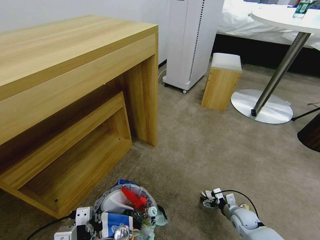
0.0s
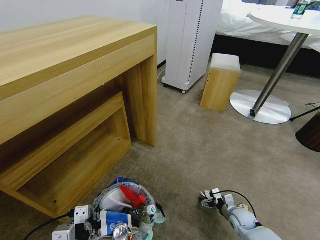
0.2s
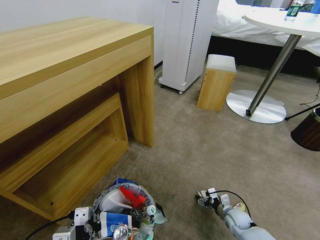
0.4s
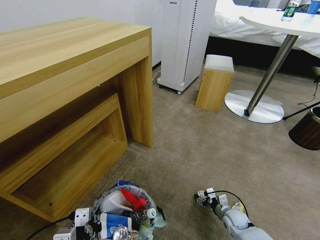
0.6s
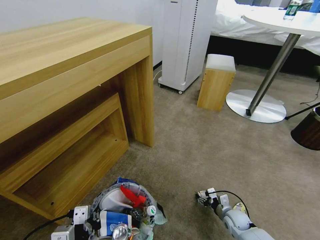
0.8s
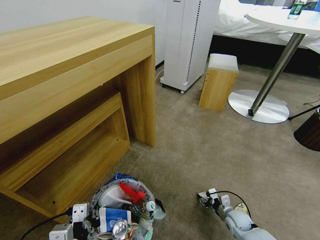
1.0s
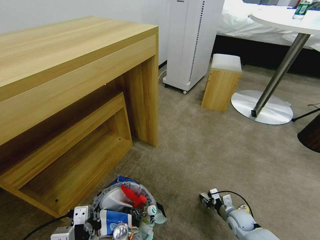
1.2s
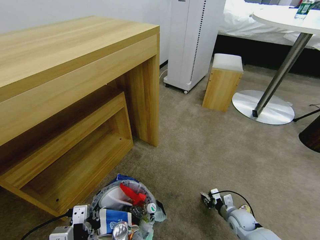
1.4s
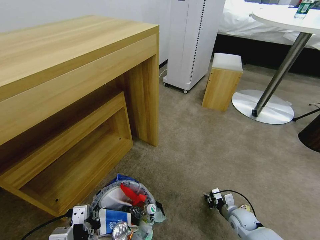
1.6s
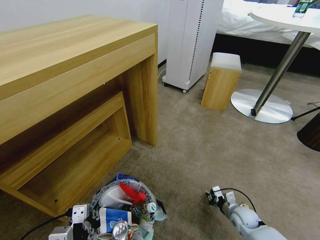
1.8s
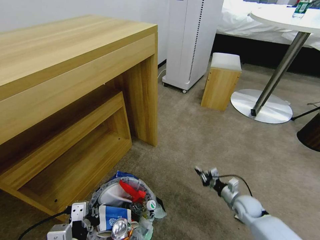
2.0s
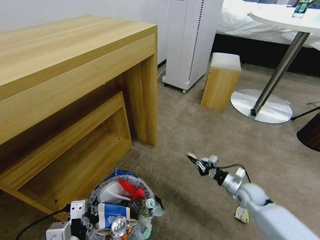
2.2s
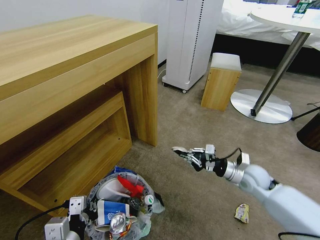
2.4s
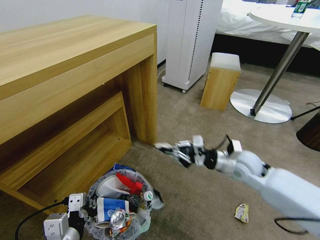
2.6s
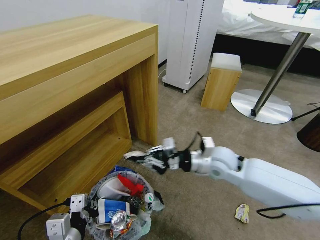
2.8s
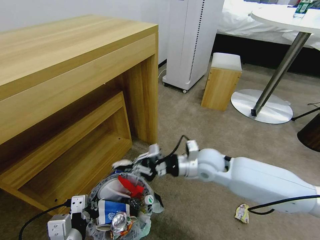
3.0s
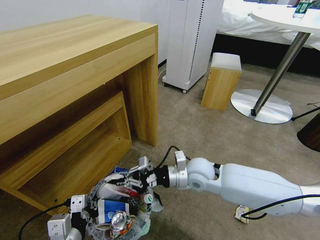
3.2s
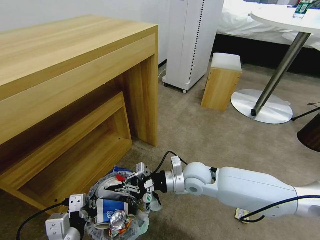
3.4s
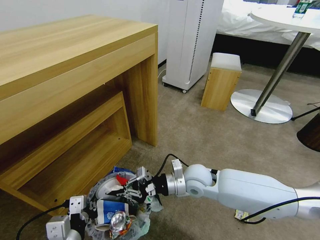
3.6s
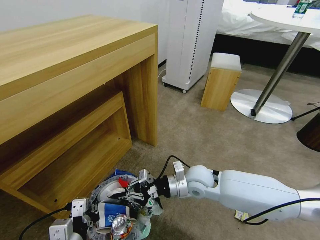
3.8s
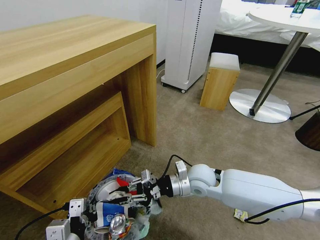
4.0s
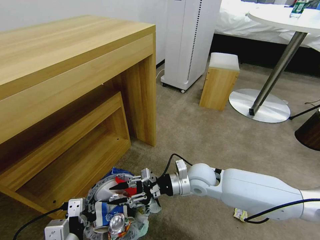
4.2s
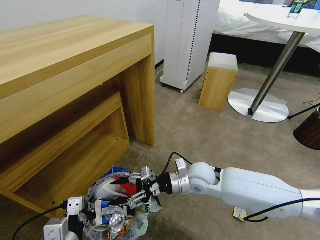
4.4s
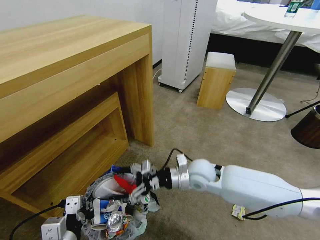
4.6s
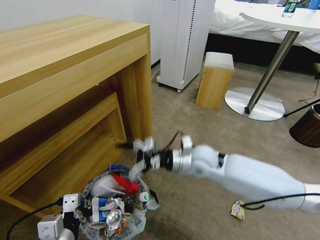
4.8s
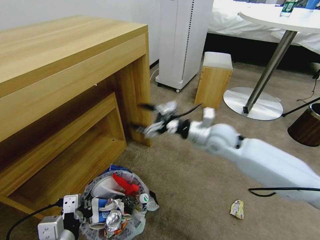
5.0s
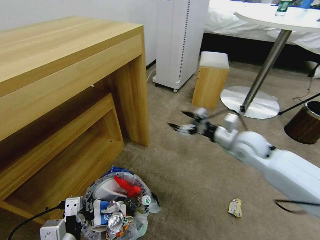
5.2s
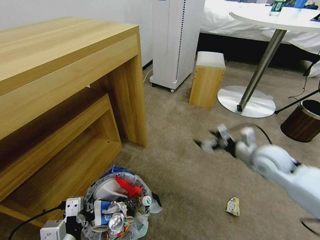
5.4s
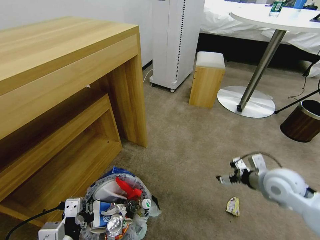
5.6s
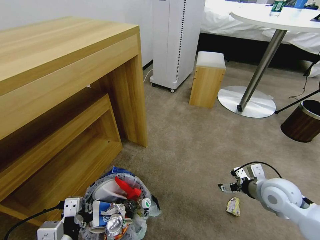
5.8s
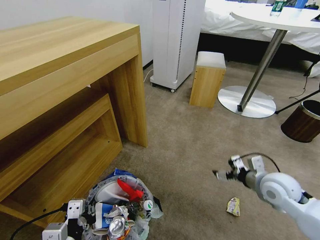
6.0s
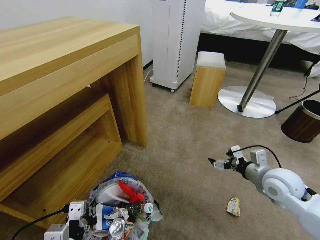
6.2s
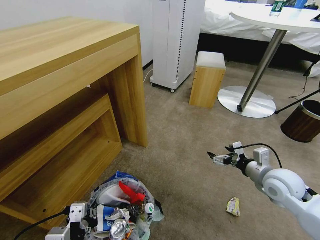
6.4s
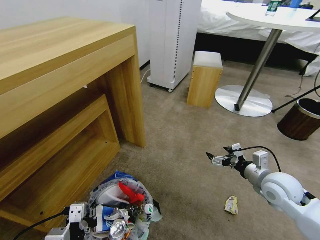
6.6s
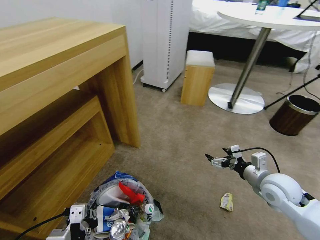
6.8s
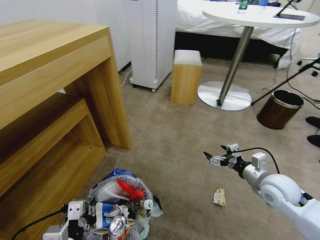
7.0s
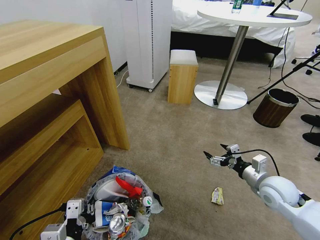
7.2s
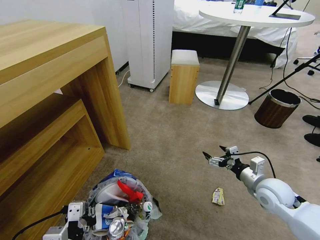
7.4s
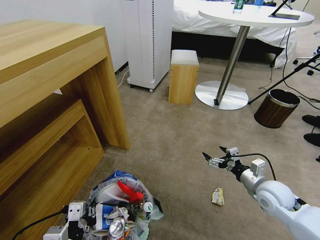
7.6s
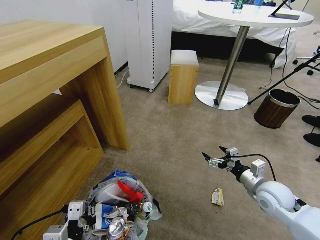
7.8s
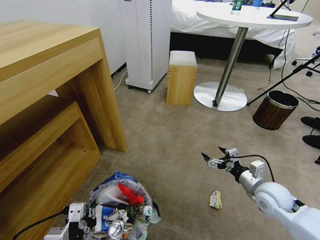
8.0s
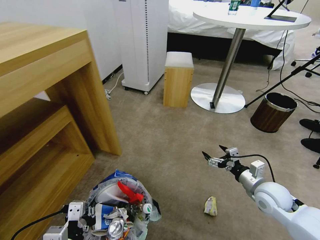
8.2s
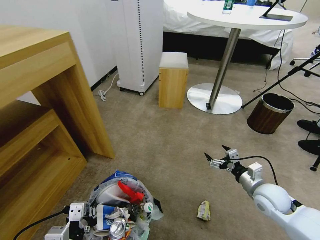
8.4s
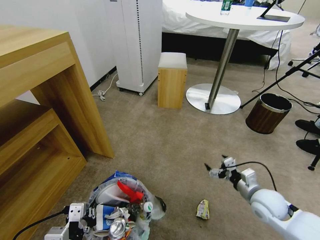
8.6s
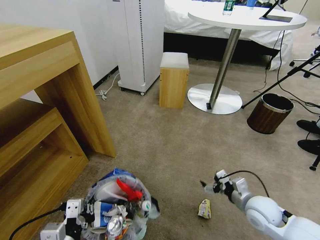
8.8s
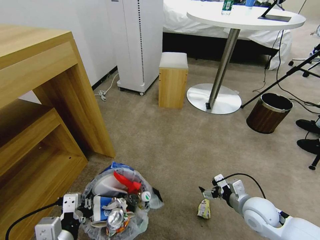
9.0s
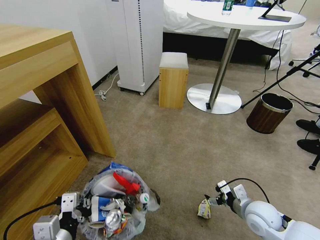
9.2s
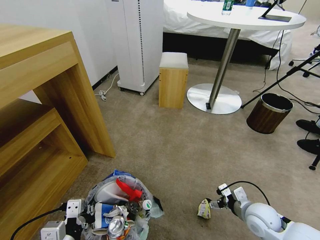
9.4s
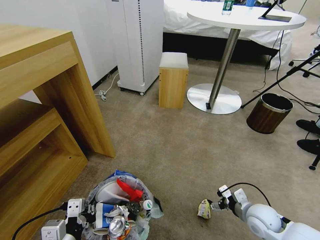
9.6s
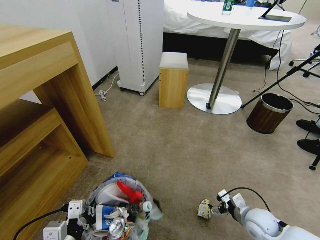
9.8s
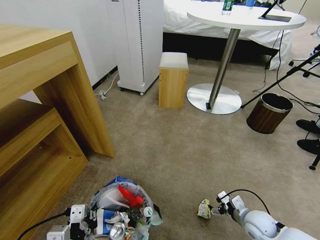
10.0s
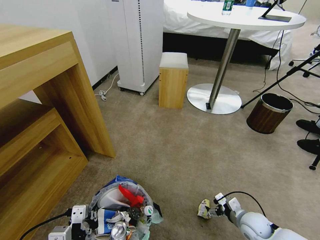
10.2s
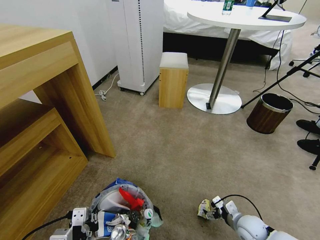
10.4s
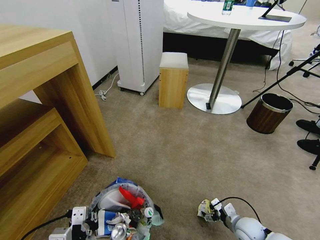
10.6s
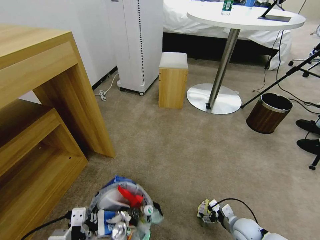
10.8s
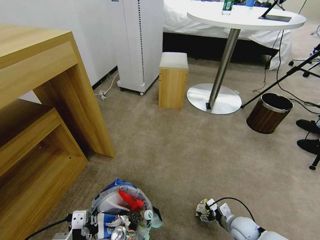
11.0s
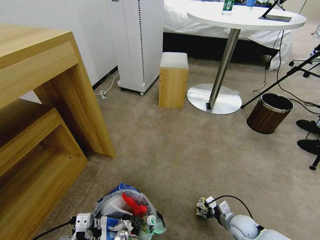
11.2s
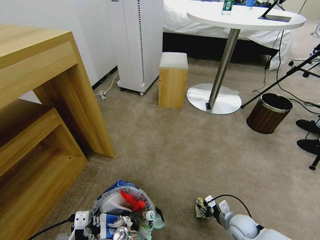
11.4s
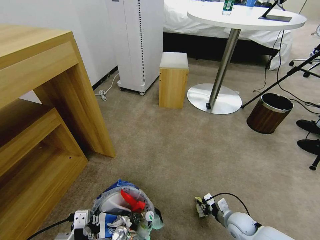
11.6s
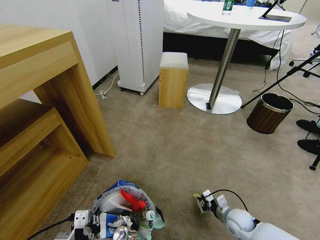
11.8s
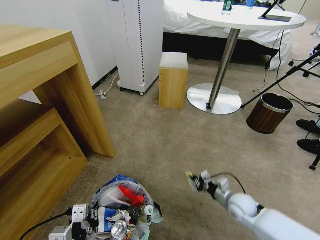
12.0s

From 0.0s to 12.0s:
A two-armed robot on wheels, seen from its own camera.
Task of the whole recording: Pick up the trash bin and place the garbage on the floor into it.
From 0.0s to 1.6s: The right gripper closes its fingers.
From 1.6s to 3.0s: The right gripper is displaced upward and to the left by roughly 35 cm.
From 3.0s to 4.4s: The right gripper opens up.
From 4.4s to 6.0s: The right gripper shifts approximately 20 cm to the right.
From 7.6s to 9.0s: The right gripper ends up roughly 5 cm from where it was.
From 9.0s to 10.4s: The right gripper shifts about 10 cm downward.
From 10.4s to 12.0s: The right gripper goes about 5 cm forward, and closes its fingers.

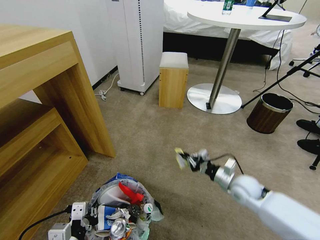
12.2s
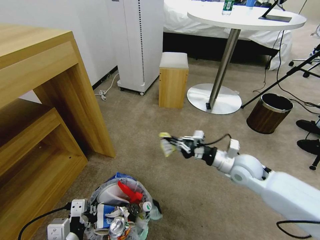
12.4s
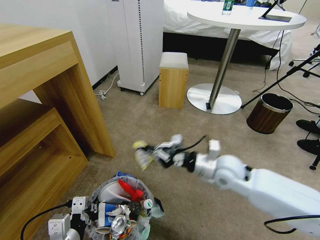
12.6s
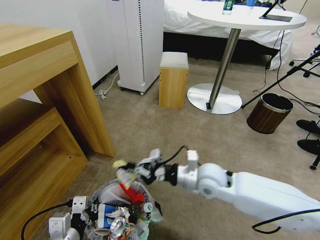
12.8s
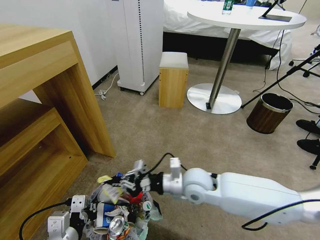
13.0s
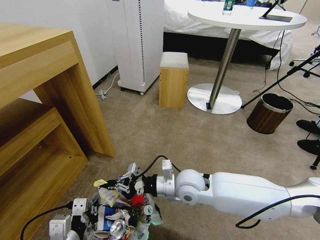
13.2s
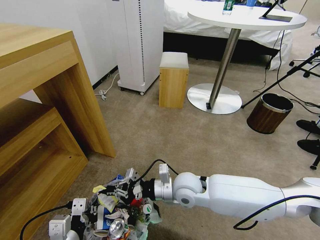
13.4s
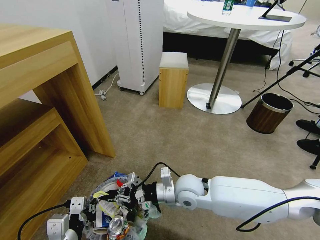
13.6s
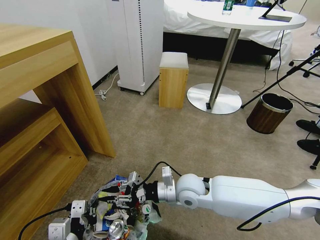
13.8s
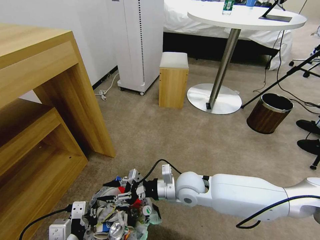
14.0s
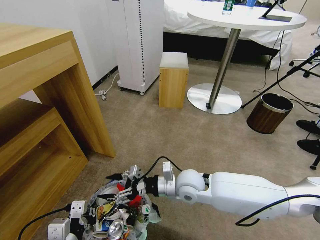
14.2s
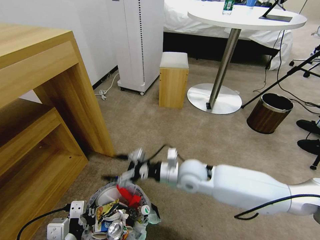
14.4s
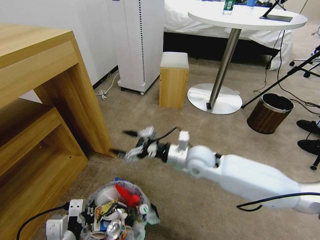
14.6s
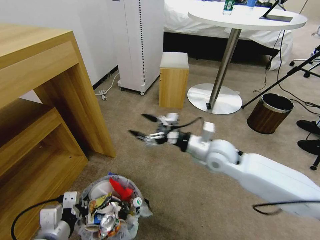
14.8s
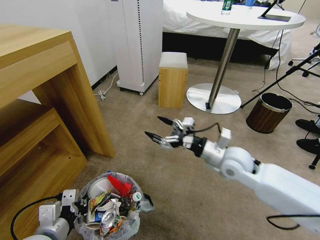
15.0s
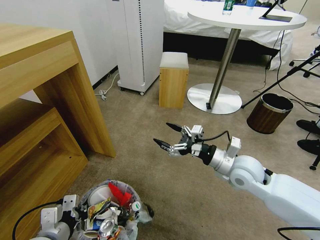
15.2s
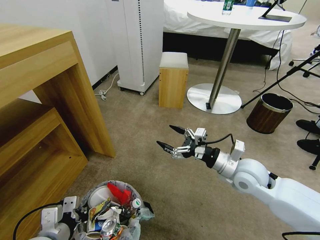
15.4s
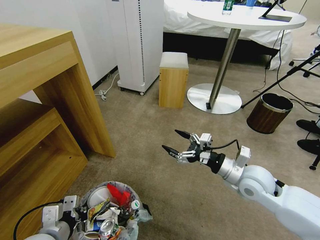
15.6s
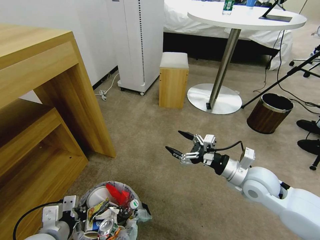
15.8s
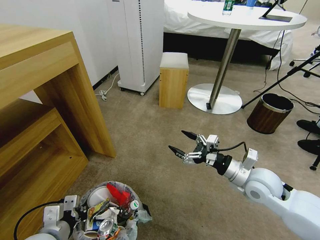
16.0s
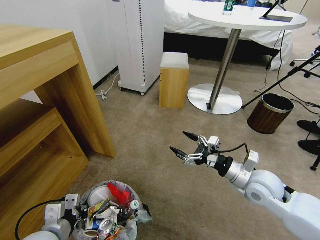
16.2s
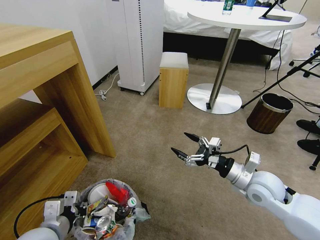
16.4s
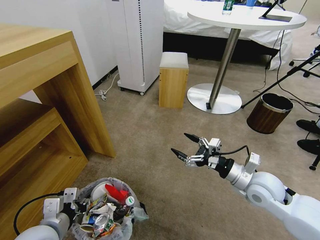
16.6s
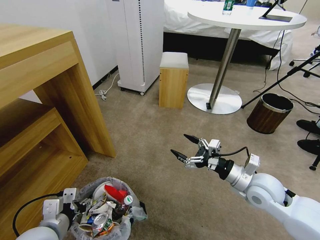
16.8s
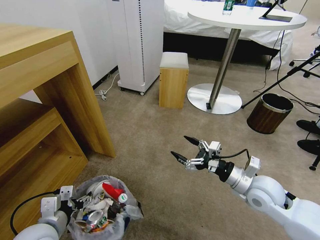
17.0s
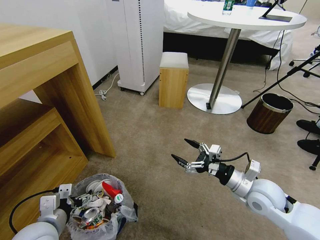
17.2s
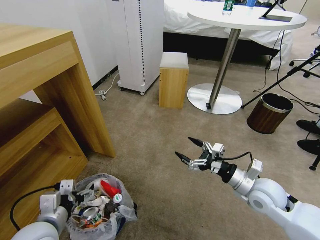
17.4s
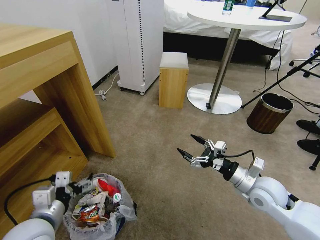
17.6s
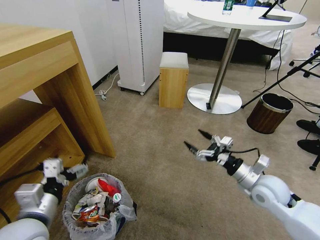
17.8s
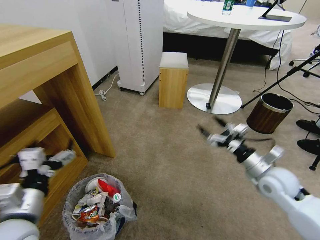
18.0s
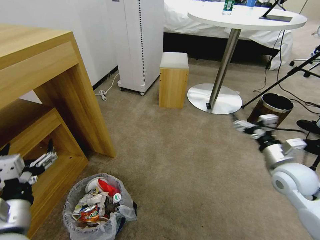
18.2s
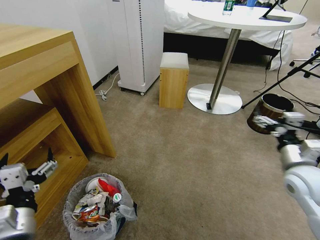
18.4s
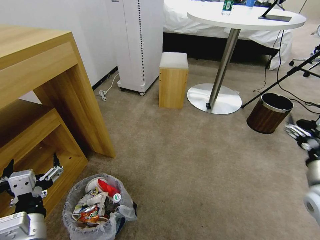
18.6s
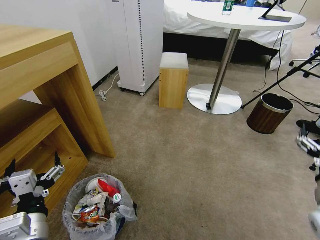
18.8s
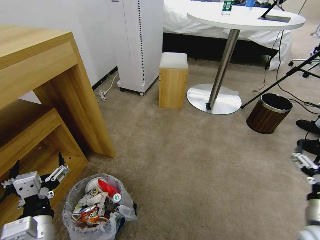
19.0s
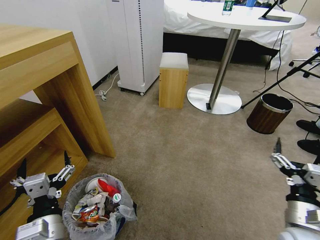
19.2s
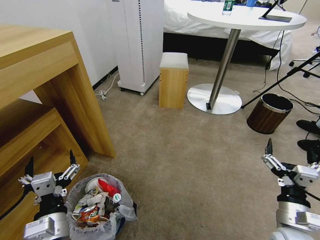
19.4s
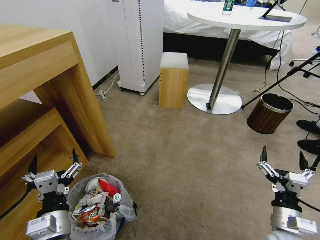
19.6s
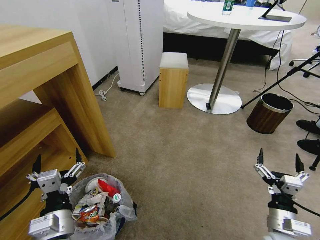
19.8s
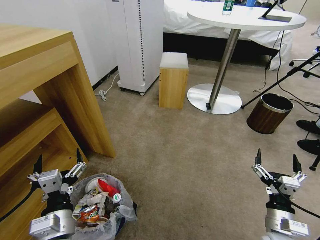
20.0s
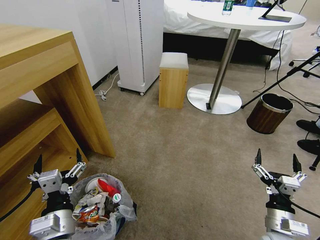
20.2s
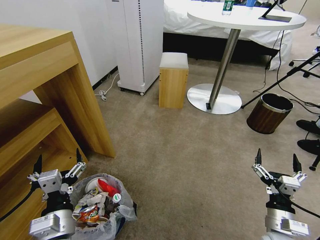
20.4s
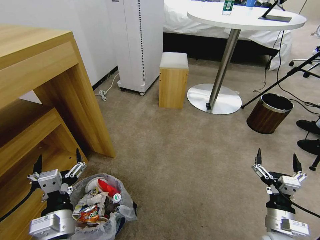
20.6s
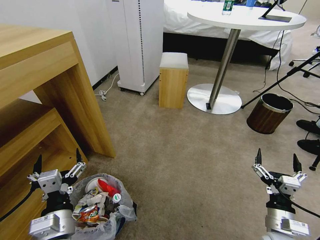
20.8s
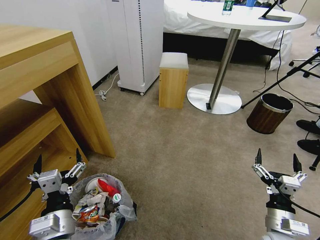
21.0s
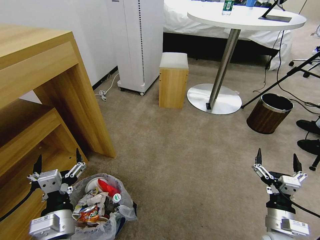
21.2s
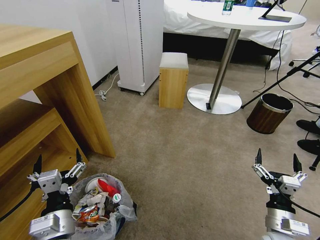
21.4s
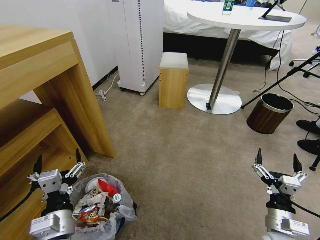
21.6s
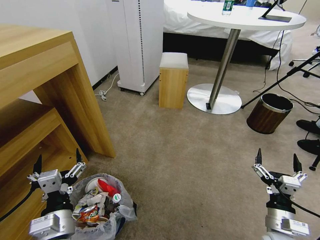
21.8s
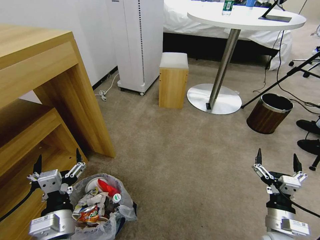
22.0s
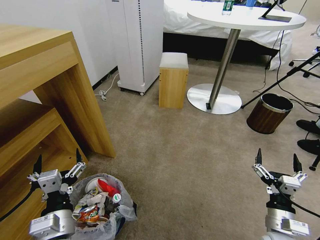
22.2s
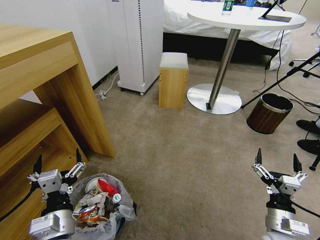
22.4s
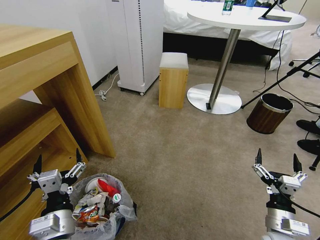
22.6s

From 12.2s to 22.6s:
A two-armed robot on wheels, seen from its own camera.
Task of the whole recording: Pick up the trash bin and place the garbage on the floor into it.
From 12.2s to 13.6s: The right gripper travels to the left by some 20 cm.
From 13.6s to 15.2s: The right gripper travels to the right and upward by some 20 cm, and opens.
From 15.2s to 16.6s: The left gripper opens, while the right gripper changes place by roughly 5 cm.
From 16.6s to 18.2s: The left gripper goes about 5 cm upward, and opens its fingers. The right gripper moves to the right, some 10 cm.
From 18.2s to 19.6s: The left gripper goes about 10 cm downward and to the right. Meanwhile the right gripper travels backward and downward by some 20 cm.
From 19.6s to 21.2s: The grippers make only small movements.
From 21.2s to 22.6s: Both grippers stay about where they are.
